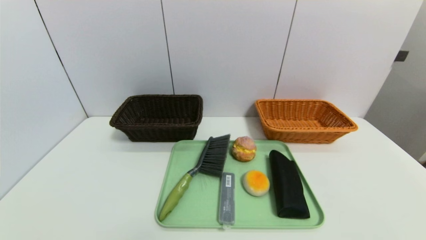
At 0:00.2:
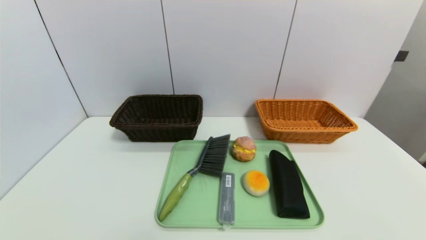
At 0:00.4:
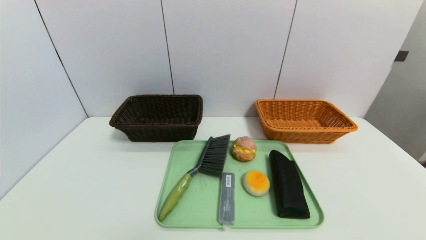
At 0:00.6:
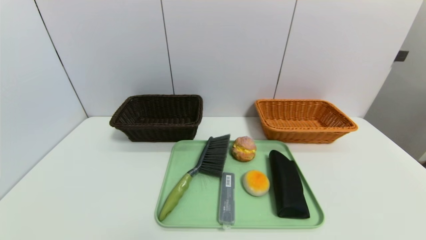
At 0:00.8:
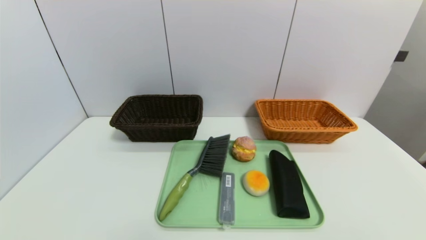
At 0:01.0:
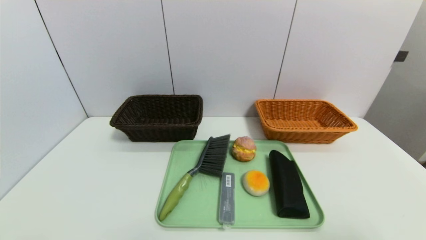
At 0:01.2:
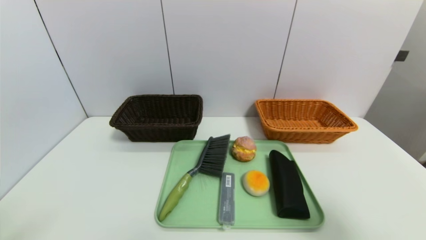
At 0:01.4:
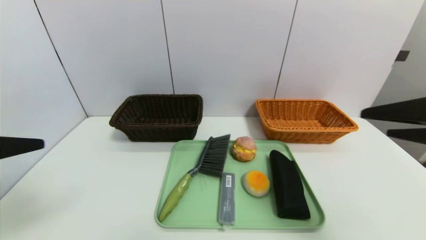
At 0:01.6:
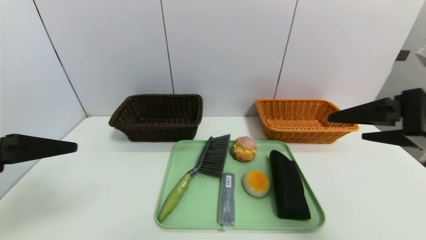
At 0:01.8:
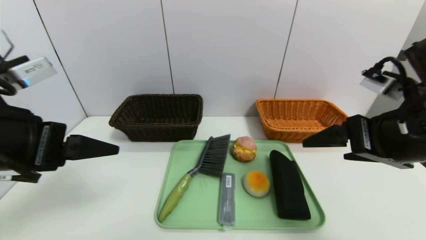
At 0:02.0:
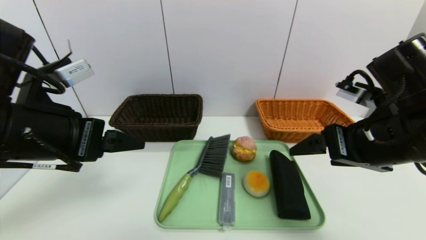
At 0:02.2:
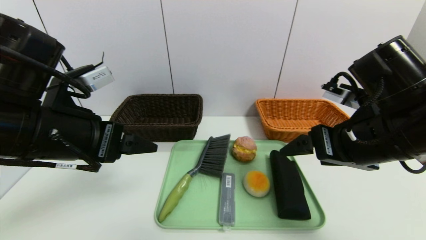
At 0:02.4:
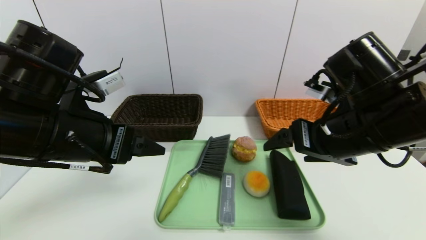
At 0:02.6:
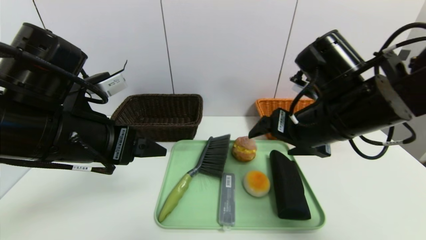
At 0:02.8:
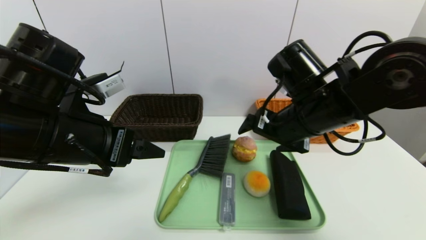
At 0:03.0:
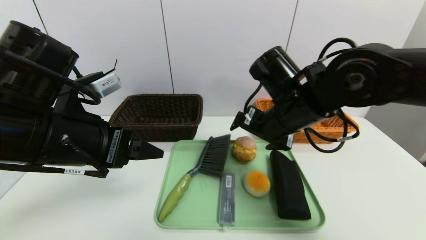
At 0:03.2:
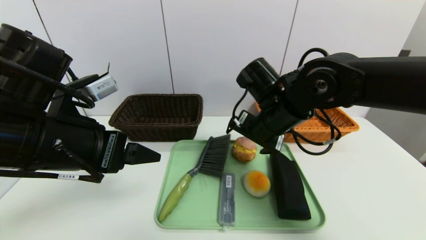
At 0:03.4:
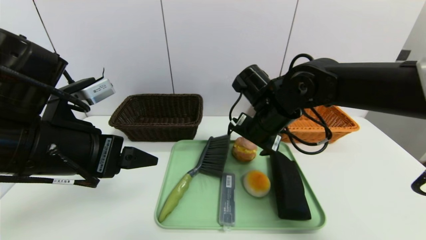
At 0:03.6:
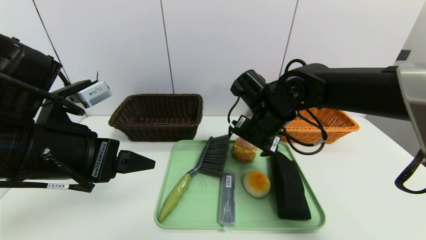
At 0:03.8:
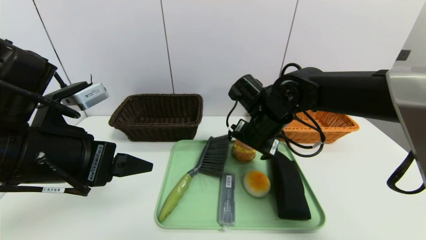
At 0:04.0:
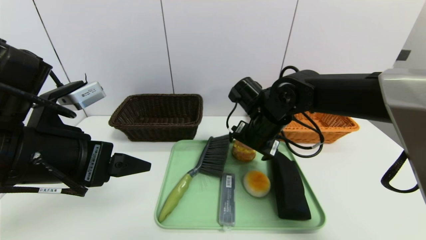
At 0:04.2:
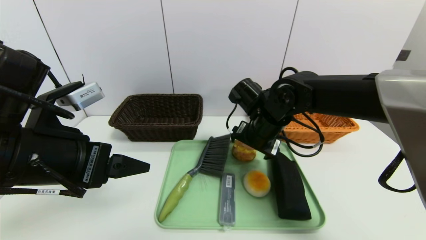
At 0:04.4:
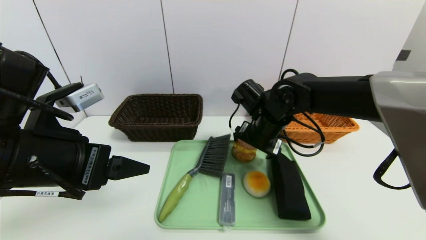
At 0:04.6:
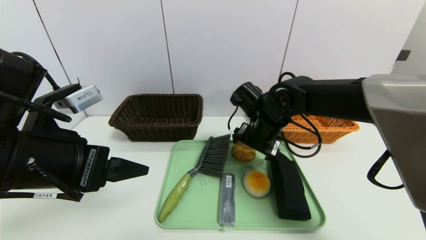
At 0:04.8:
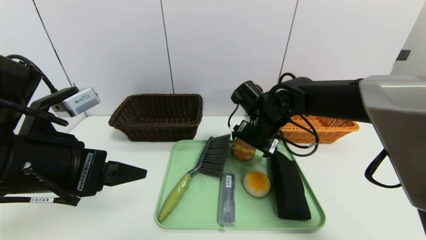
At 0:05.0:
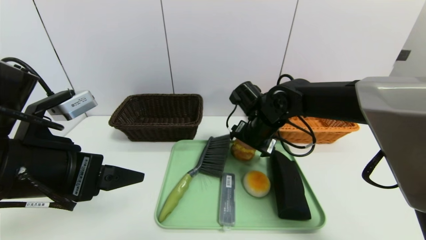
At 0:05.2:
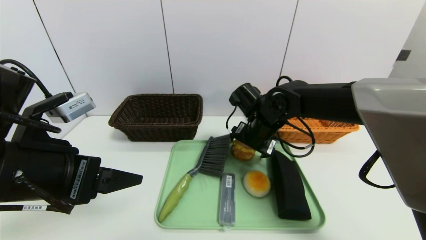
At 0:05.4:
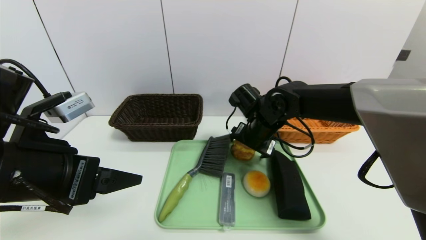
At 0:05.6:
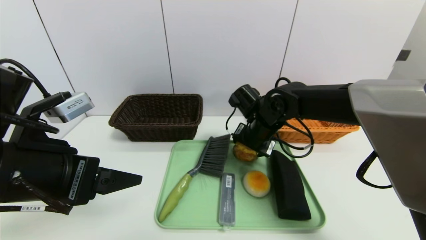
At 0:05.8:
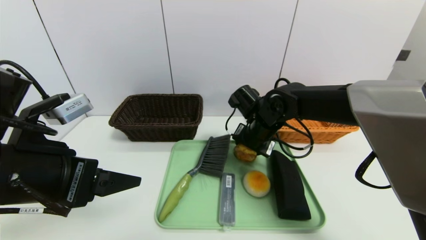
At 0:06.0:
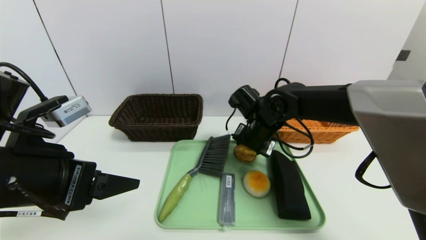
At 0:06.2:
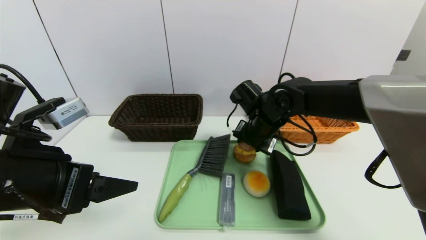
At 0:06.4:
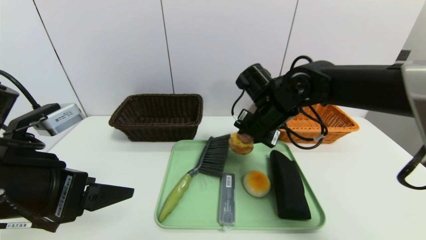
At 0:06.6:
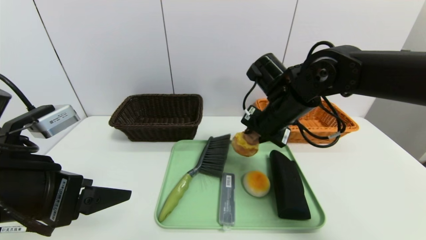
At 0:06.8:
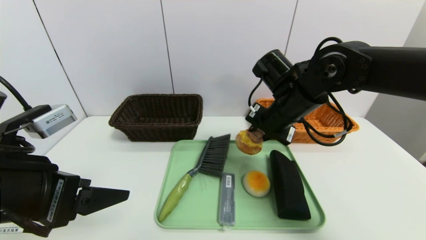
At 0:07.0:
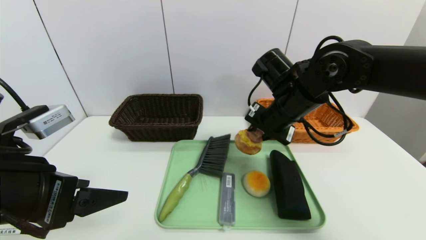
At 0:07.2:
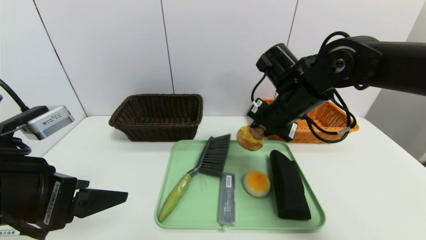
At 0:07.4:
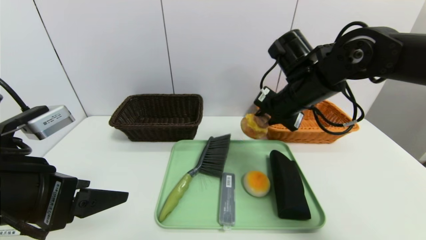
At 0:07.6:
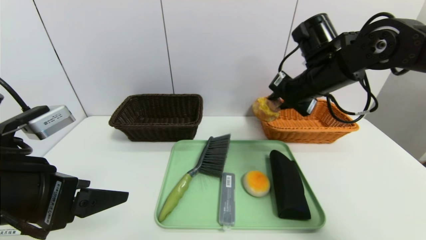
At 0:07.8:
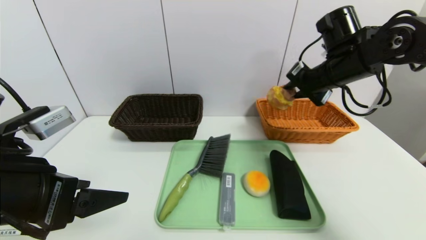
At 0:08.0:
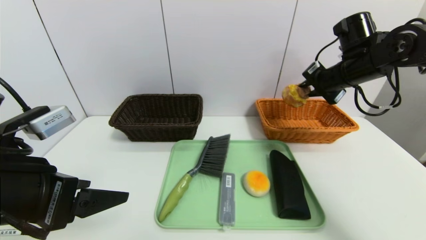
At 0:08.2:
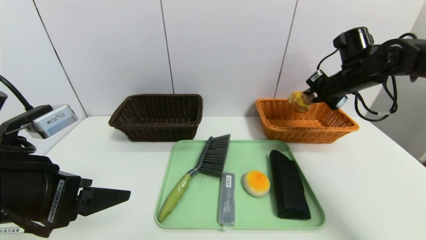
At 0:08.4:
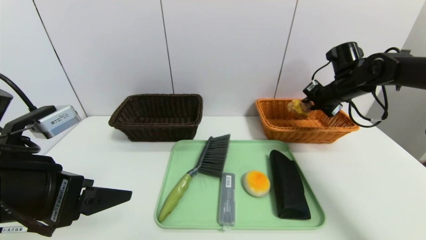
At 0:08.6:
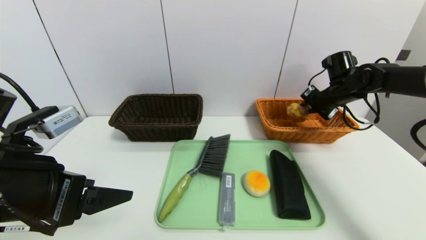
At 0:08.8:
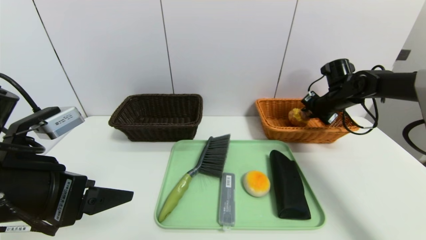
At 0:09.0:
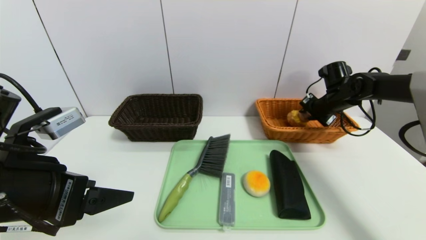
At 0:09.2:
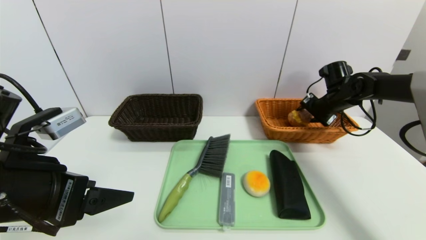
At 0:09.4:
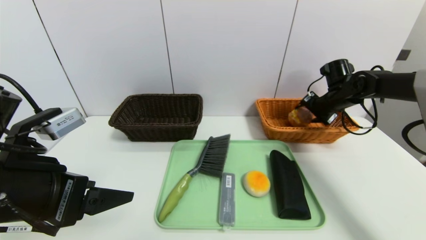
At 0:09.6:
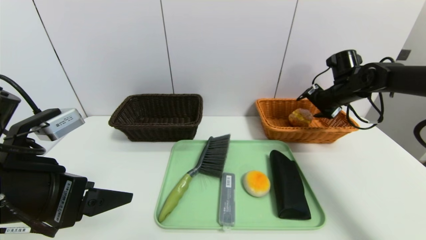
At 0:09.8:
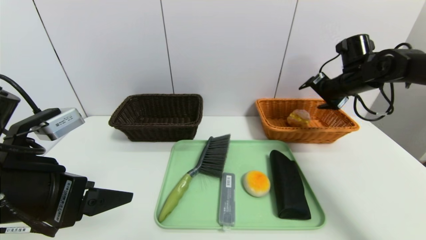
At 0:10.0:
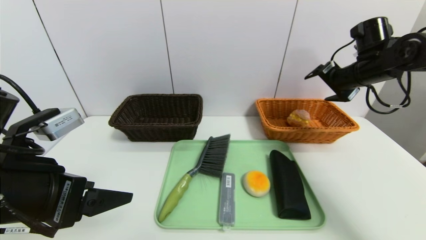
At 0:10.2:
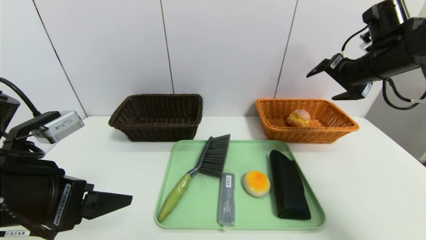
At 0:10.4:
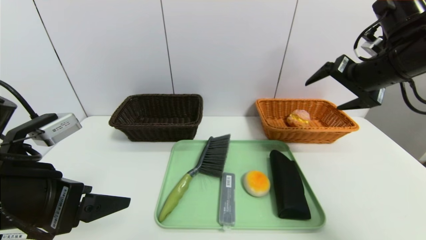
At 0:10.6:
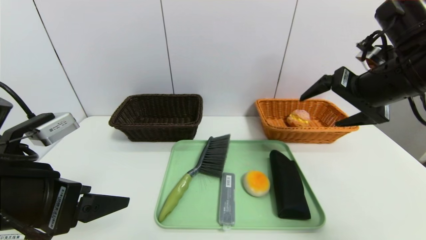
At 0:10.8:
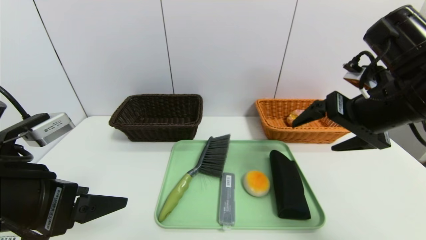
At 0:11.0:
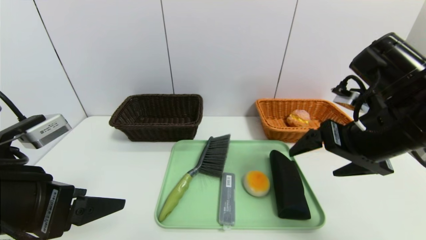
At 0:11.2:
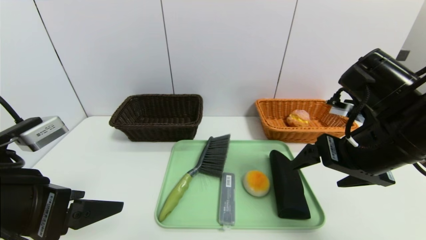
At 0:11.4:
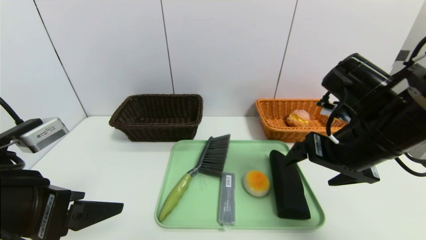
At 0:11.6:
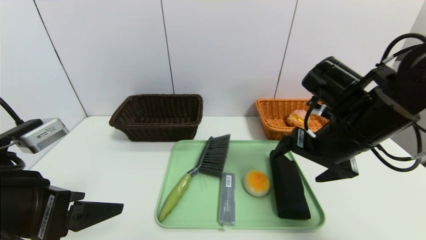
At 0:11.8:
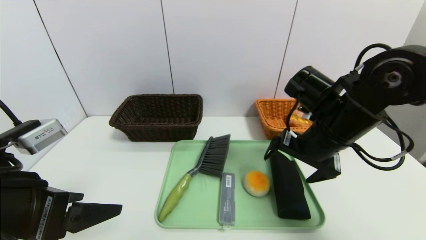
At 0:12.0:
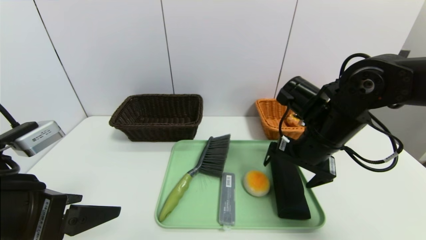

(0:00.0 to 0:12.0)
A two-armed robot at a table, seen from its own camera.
Task of the whole recording: place the food in the right basket with the right gripper, and place the non food items in the left basket with the left gripper.
Step, 0:00.0 - 0:09.6: Grasp the round bread and put it in the right basket.
0:00.0 - 0:01.6: Both grippers travel together upward and forward, about 30 cm.
0:01.6 - 0:03.0: The left gripper goes roughly 10 cm to the right and forward, while the right gripper heads to the left, forward and downward, covering some 20 cm.
0:03.0 - 0:04.4: The right gripper is displaced downward and forward by about 10 cm.
0:04.4 - 0:06.0: The right gripper closes.
0:06.0 - 0:07.6: The right gripper is displaced upward and to the right by approximately 15 cm.
0:07.6 - 0:09.0: The right gripper shifts about 20 cm to the right, forward and downward.
0:09.0 - 0:10.4: The right gripper travels backward and upward by approximately 20 cm, and opens up.
0:10.4 - 0:12.0: The right gripper is displaced downward and to the left by about 15 cm.

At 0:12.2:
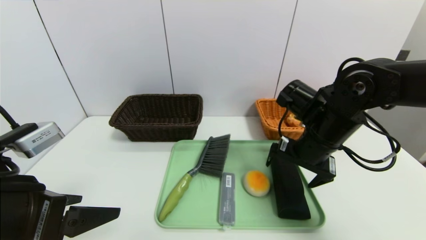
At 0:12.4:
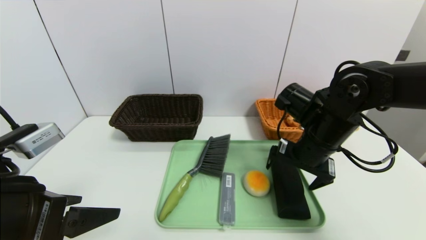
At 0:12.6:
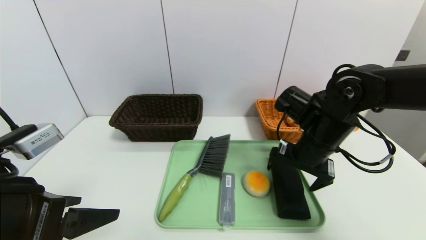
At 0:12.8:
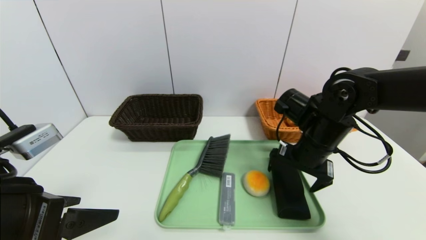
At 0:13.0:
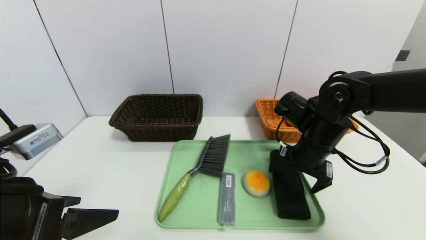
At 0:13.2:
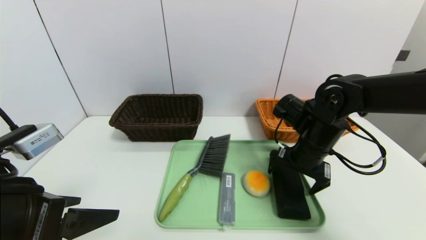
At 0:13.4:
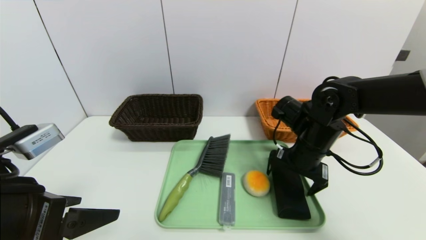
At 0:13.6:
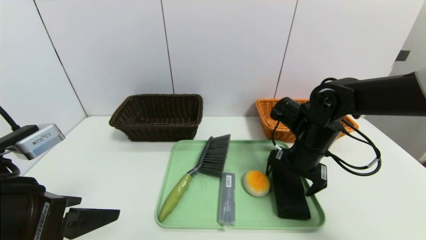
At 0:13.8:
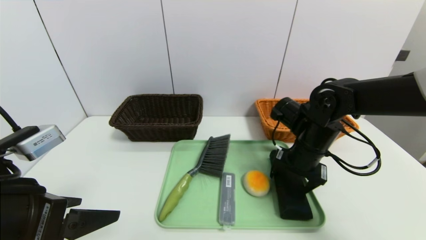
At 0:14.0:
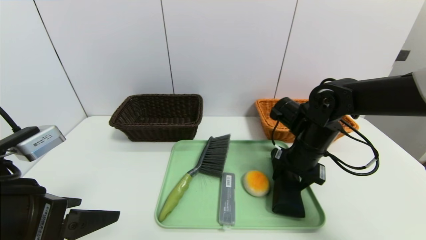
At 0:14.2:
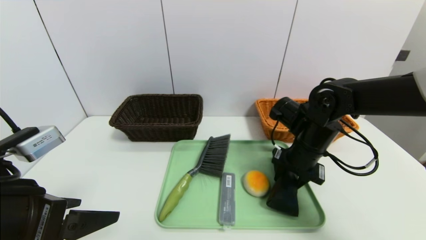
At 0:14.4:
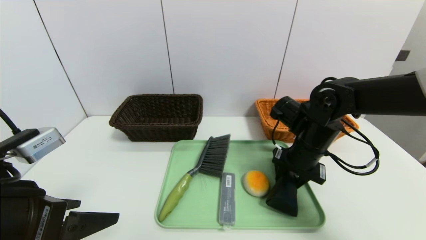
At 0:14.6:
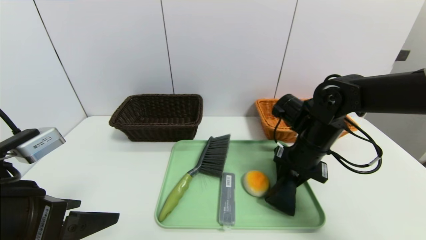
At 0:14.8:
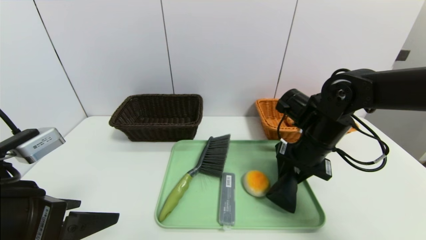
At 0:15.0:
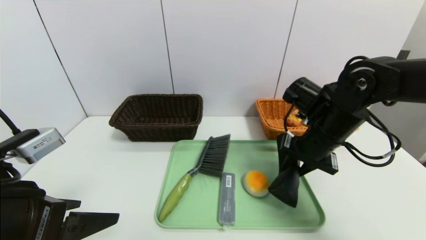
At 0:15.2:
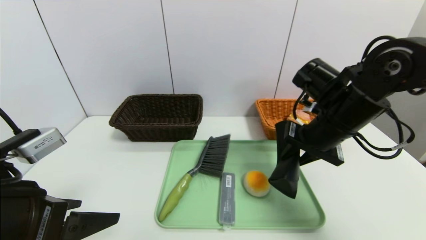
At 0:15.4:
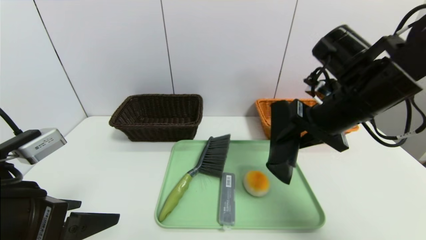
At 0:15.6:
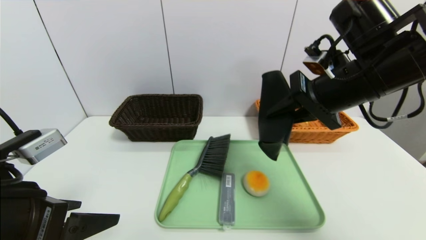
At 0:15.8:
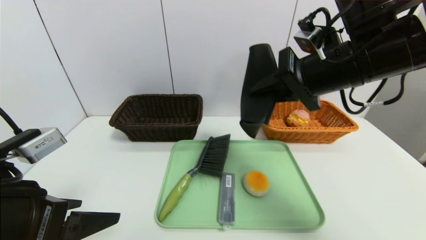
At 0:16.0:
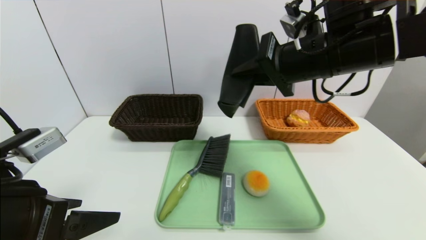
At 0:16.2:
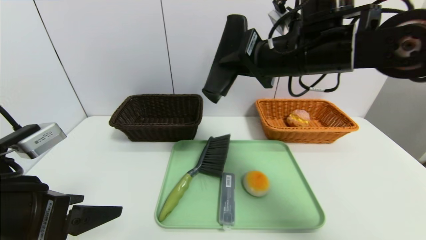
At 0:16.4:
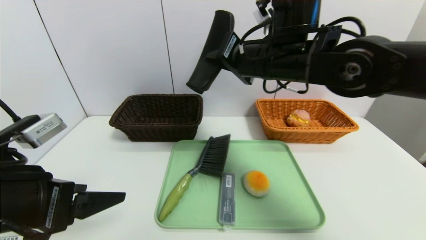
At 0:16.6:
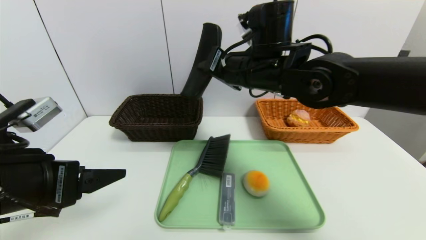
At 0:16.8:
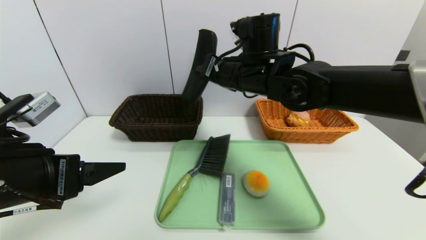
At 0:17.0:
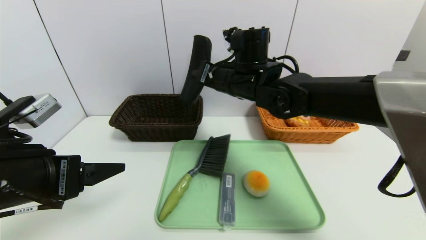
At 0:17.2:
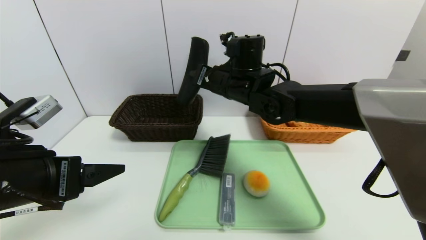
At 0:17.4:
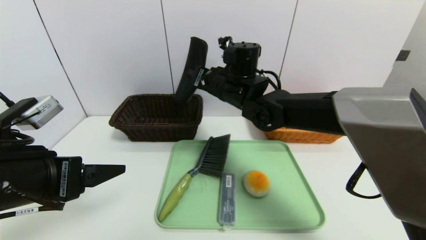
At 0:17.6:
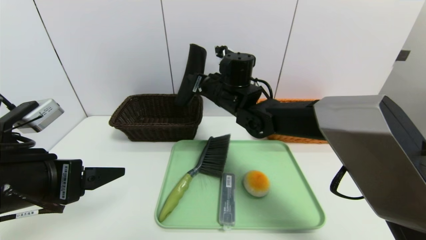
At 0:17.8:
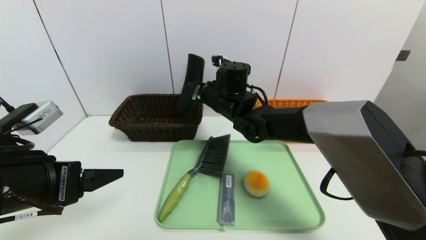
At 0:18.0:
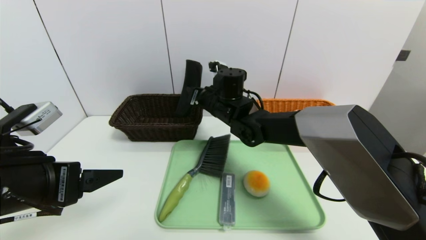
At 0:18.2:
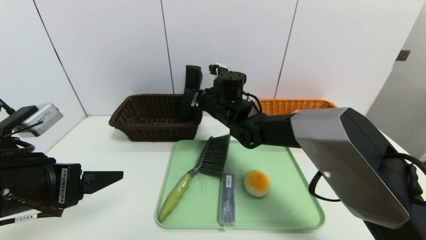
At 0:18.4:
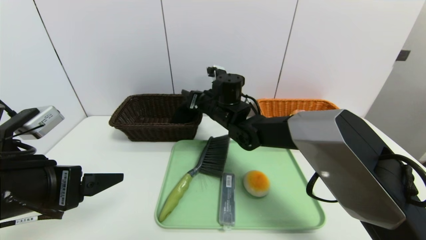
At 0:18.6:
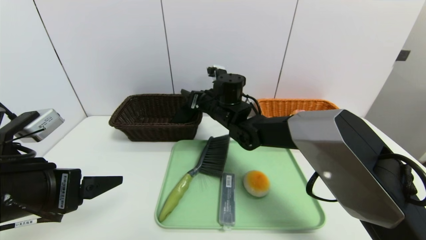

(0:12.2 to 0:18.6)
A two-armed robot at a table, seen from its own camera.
Task of the whole recording: place the food in the right basket with the right gripper, and place the non food items in the left basket with the left gripper.
0:12.2 - 0:13.8: The right gripper changes place by about 5 cm.
0:13.8 - 0:15.4: The right gripper is displaced upward and backward by some 15 cm, and closes its fingers.
0:15.4 - 0:17.0: The right gripper moves to the left and forward, roughly 20 cm.
0:17.0 - 0:18.6: The right gripper heads downward, covering about 10 cm, and opens.
